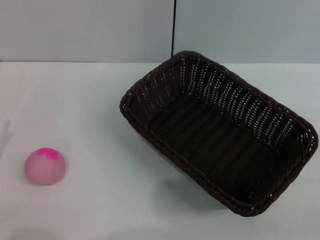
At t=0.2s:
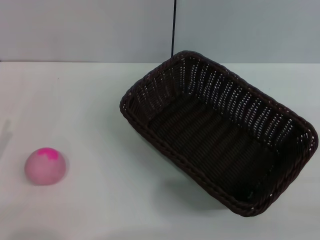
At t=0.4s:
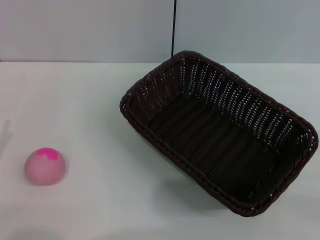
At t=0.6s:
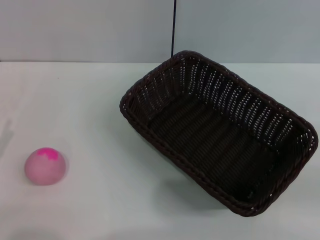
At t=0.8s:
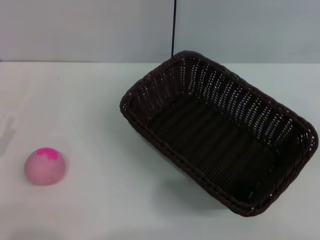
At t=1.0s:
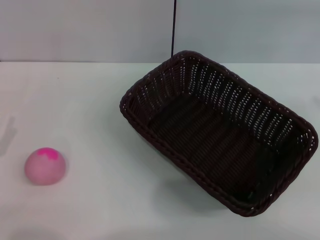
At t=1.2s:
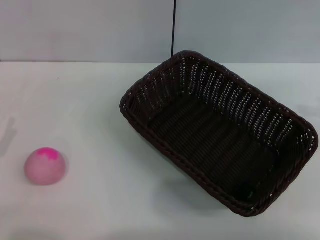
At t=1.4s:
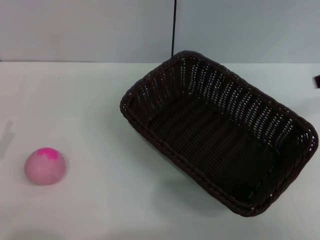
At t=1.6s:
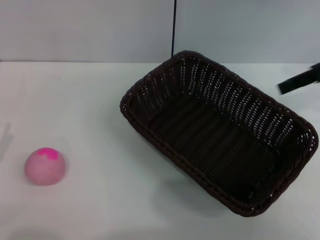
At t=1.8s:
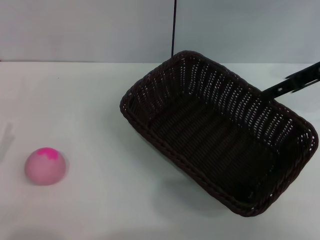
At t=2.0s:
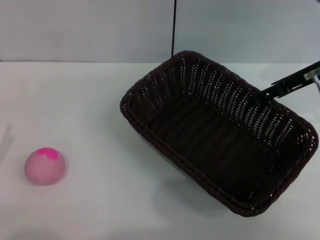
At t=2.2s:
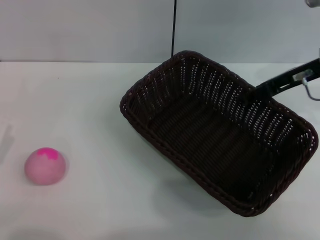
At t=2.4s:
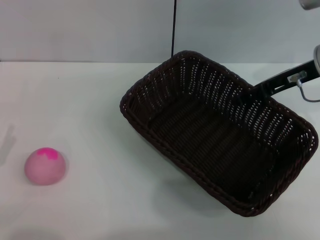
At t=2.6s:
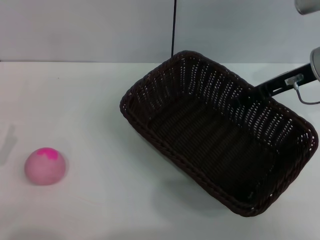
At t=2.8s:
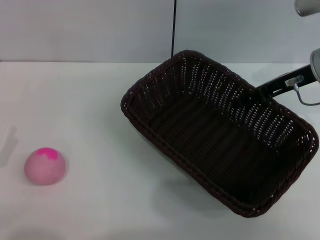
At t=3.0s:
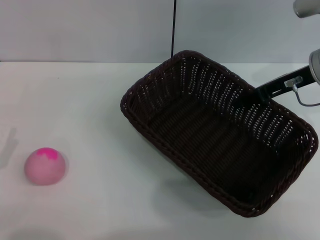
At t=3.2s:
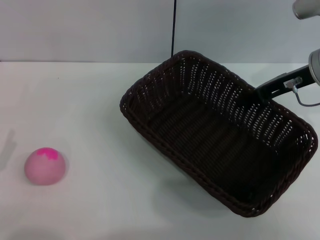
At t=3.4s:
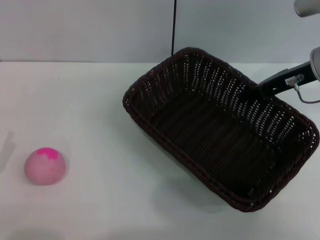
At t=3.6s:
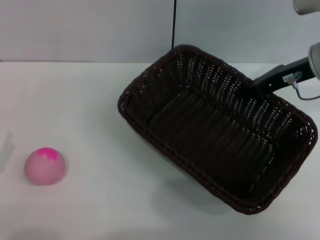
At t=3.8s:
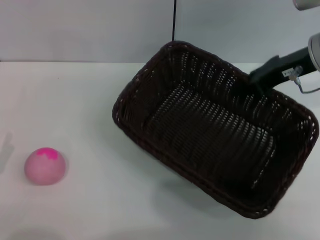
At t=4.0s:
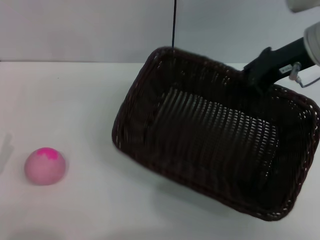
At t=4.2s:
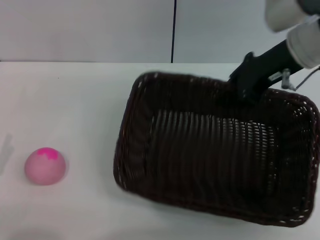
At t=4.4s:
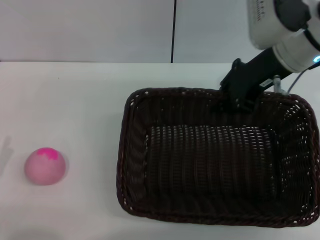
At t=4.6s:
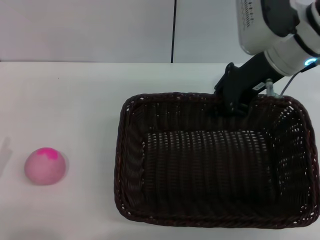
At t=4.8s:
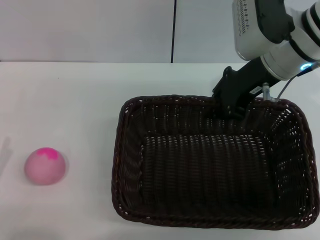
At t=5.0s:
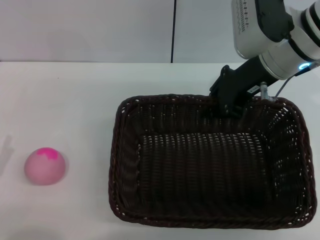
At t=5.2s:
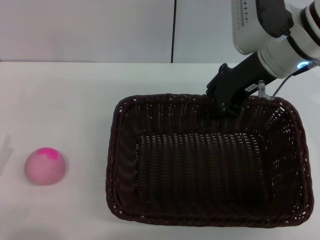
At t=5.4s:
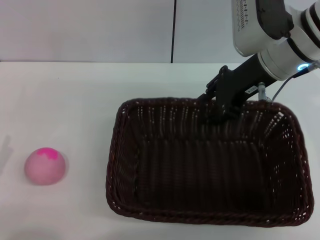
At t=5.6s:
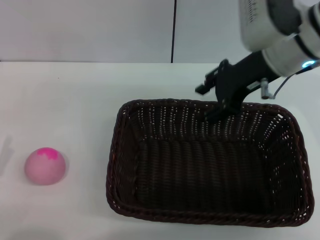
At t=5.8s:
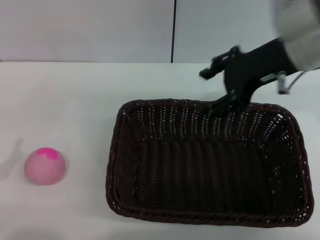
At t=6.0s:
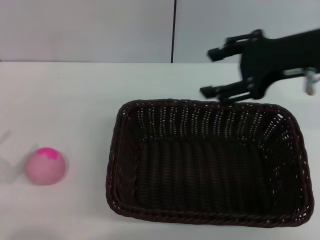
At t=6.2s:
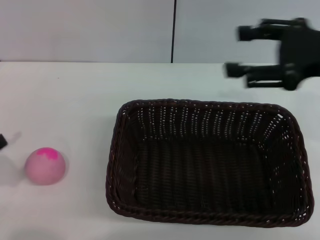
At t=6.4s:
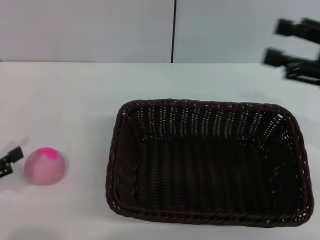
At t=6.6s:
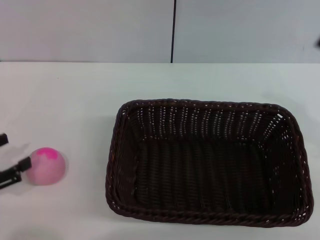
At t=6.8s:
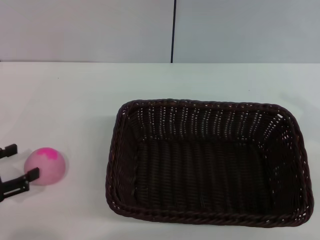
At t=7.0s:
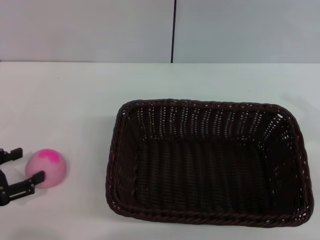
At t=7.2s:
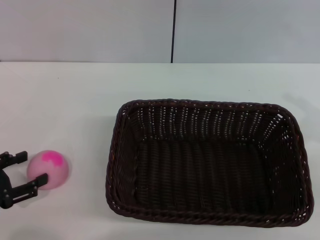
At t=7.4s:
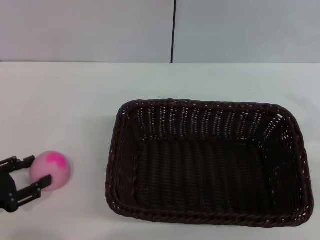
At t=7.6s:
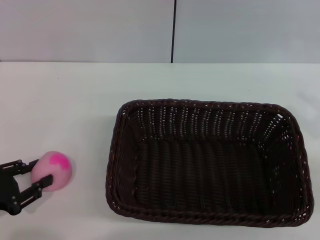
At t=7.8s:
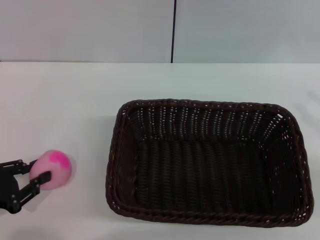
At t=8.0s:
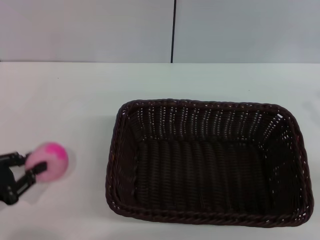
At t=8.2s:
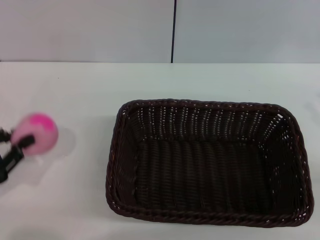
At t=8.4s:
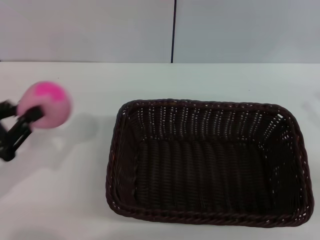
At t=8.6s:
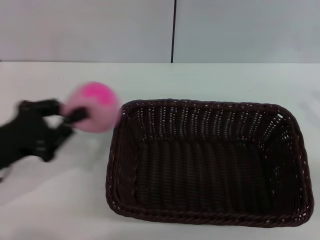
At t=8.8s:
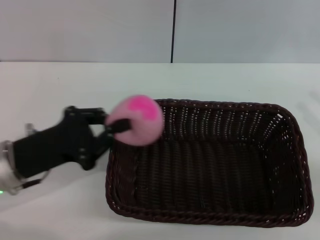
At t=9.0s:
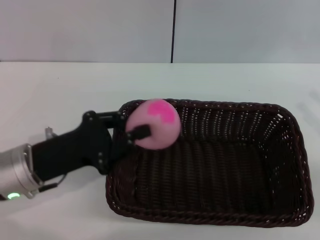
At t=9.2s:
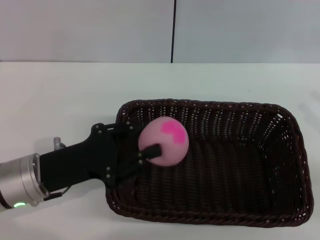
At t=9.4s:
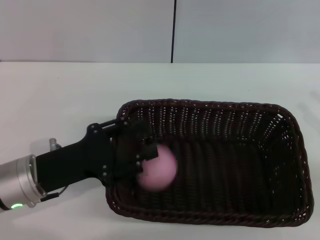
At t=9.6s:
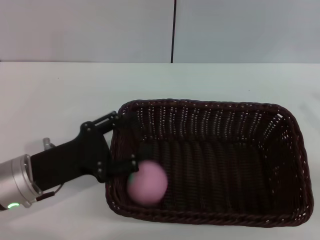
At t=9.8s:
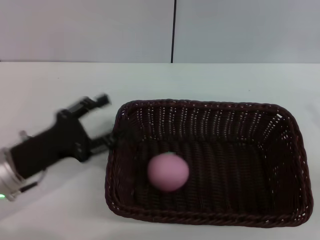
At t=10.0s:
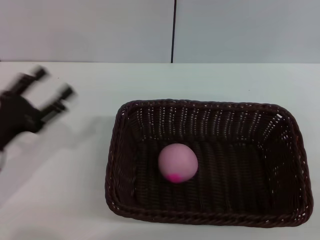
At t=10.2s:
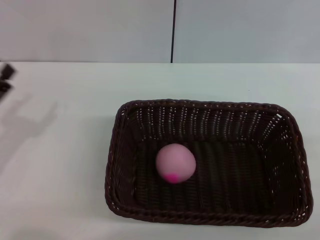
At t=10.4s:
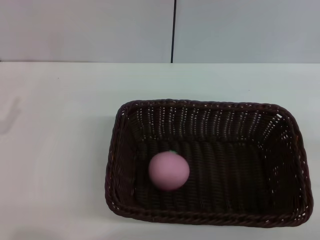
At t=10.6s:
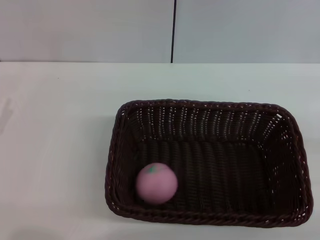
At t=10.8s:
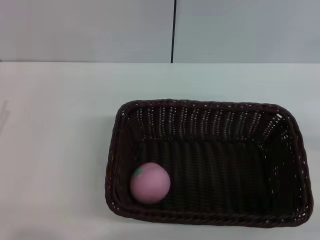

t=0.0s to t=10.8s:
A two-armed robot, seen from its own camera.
Step, t=0.0s to t=4.0s: Pick up the dark basket with the right gripper.
Step, t=4.2s to t=6.0s: Place the dark basket in the center of view with the right gripper.
Step, t=6.2s to t=8.2s: Pick up the peach with the left gripper.
Step, t=8.6s to t=9.8s: Place the peach into the basket with the left gripper.
t=0.0s to t=1.6s: The right gripper goes approximately 25 cm forward, to the left and upward.
t=1.6s to t=3.0s: The right gripper travels downward by roughly 5 cm.
t=3.0s to t=4.6s: The right gripper shifts approximately 10 cm to the left, and closes up.
t=4.6s to t=6.2s: The left gripper heads upward, covering some 5 cm, while the right gripper shifts some 15 cm to the right and backward, and opens up.
t=6.2s to t=7.8s: The right gripper travels downward, to the right and backward by some 15 cm, while the left gripper moves roughly 5 cm, and closes.
t=7.8s to t=9.2s: The left gripper moves to the right and forward, some 15 cm, and closes.
t=9.2s to t=10.8s: The right gripper goes approximately 5 cm to the right. The left gripper heads to the left, covering some 15 cm, and opens its fingers.
